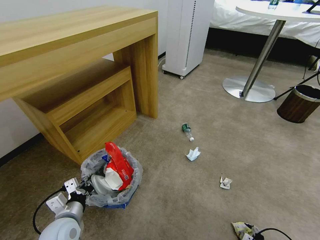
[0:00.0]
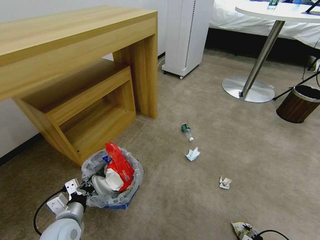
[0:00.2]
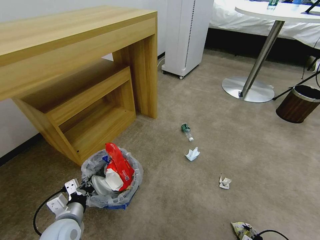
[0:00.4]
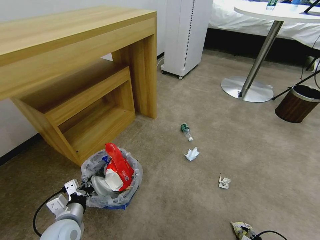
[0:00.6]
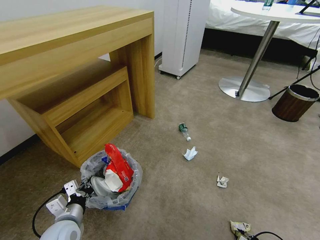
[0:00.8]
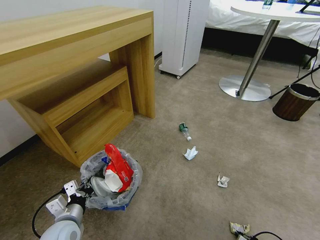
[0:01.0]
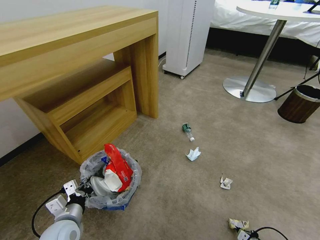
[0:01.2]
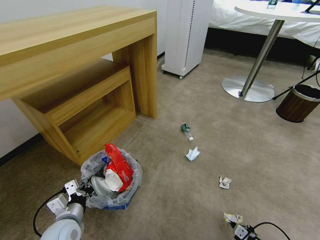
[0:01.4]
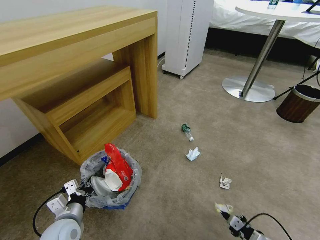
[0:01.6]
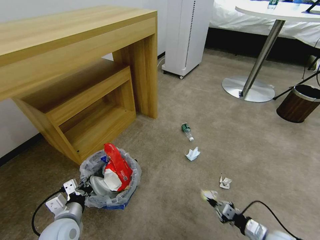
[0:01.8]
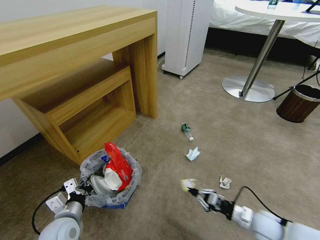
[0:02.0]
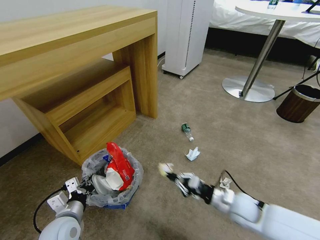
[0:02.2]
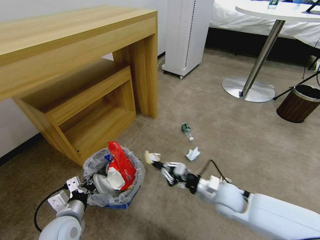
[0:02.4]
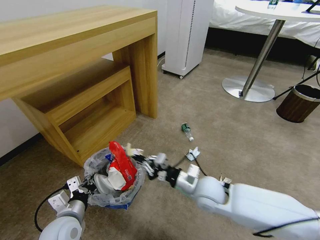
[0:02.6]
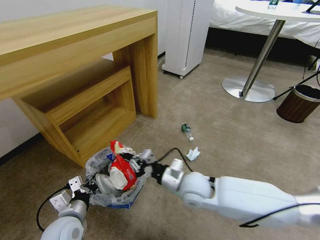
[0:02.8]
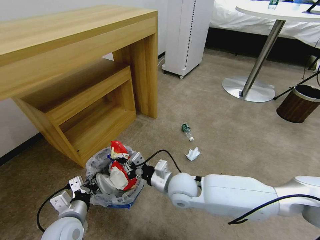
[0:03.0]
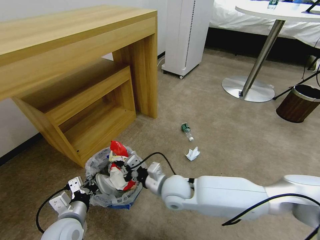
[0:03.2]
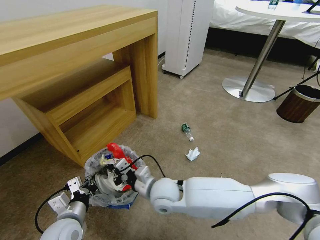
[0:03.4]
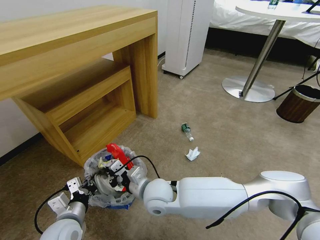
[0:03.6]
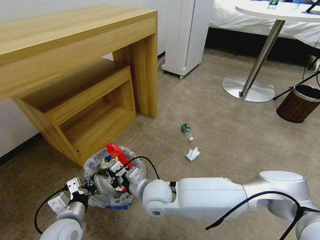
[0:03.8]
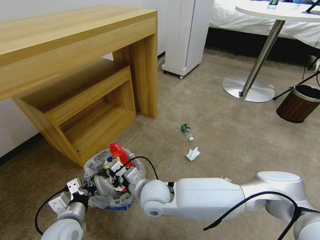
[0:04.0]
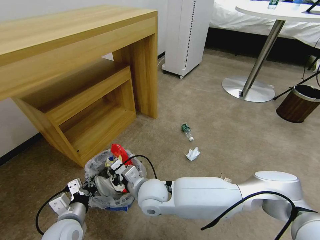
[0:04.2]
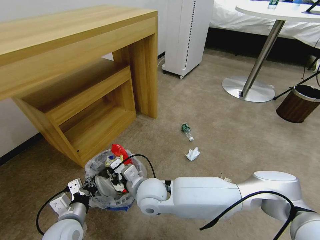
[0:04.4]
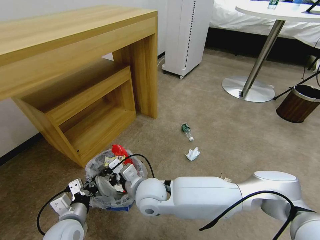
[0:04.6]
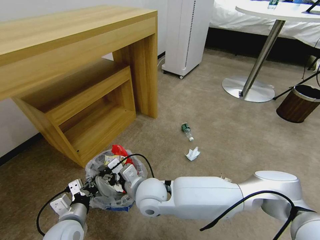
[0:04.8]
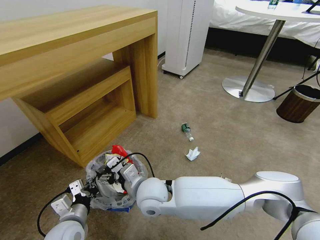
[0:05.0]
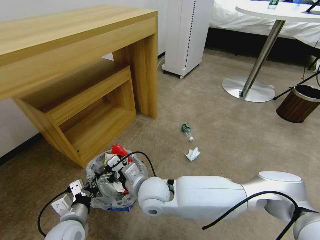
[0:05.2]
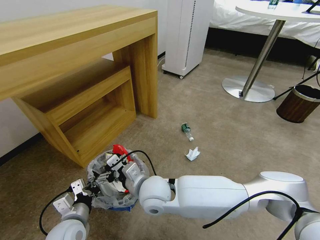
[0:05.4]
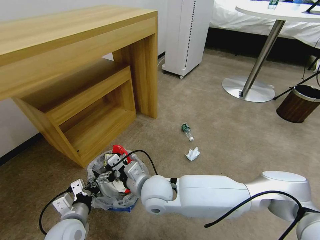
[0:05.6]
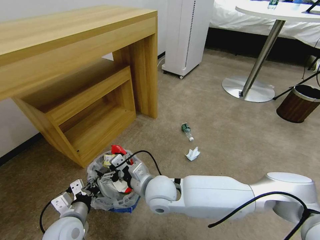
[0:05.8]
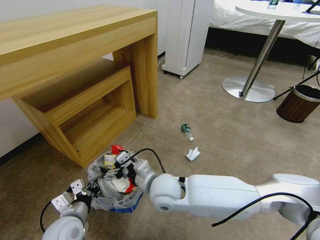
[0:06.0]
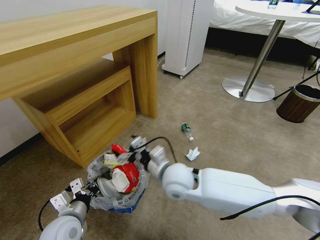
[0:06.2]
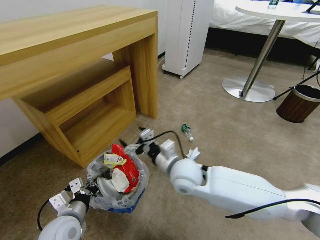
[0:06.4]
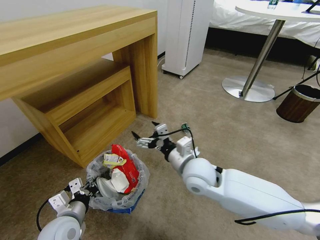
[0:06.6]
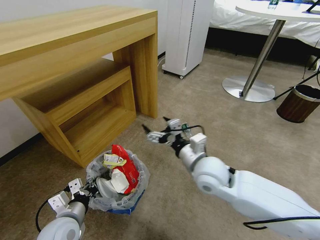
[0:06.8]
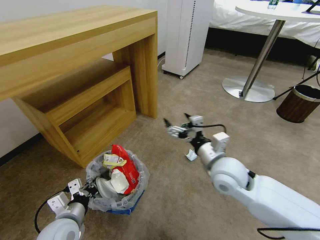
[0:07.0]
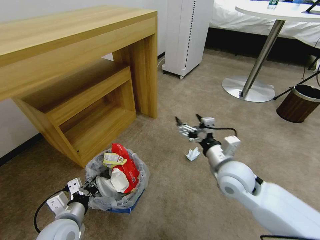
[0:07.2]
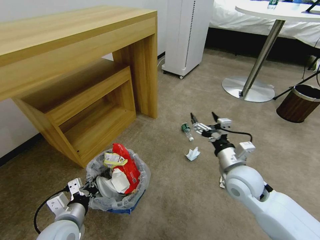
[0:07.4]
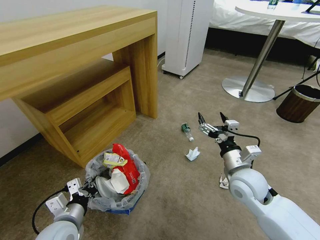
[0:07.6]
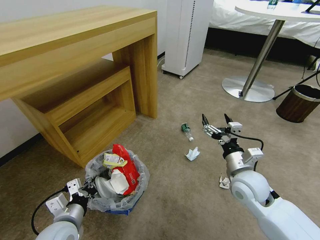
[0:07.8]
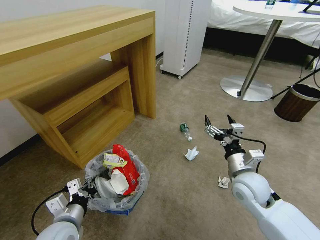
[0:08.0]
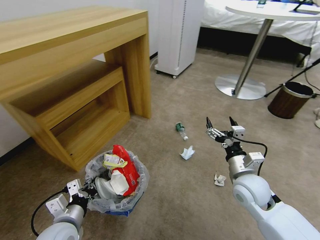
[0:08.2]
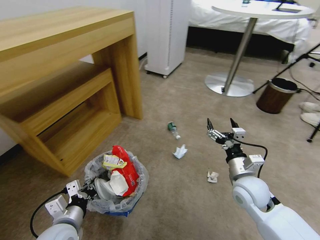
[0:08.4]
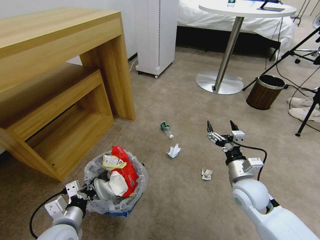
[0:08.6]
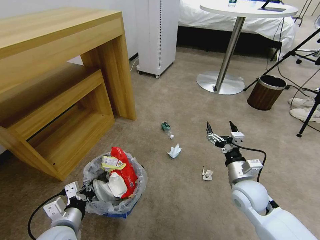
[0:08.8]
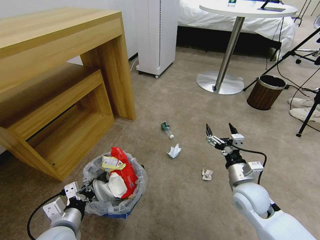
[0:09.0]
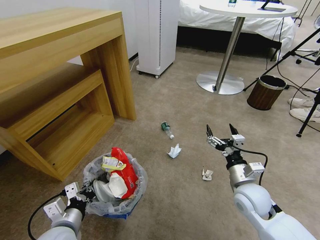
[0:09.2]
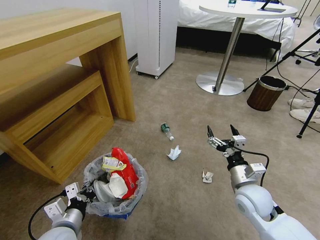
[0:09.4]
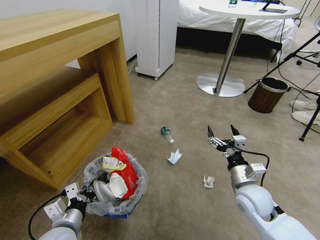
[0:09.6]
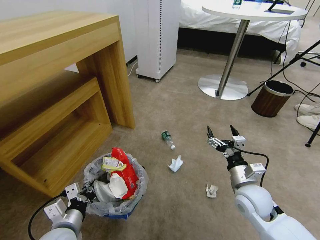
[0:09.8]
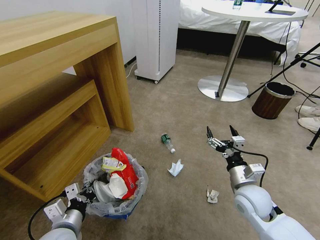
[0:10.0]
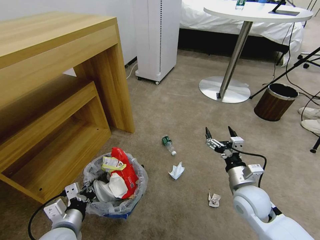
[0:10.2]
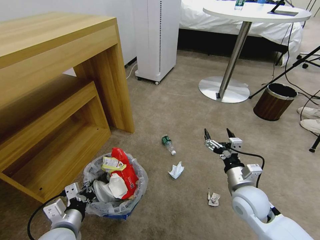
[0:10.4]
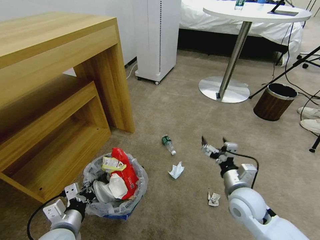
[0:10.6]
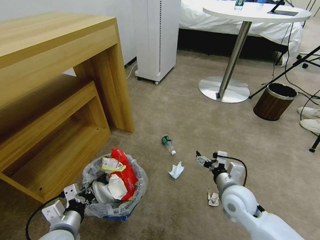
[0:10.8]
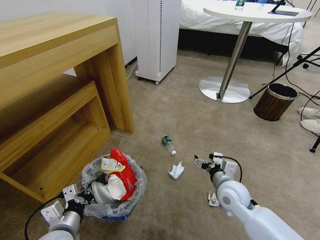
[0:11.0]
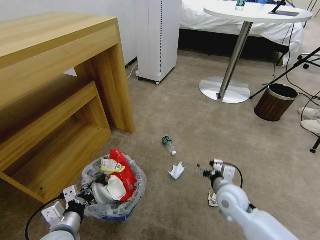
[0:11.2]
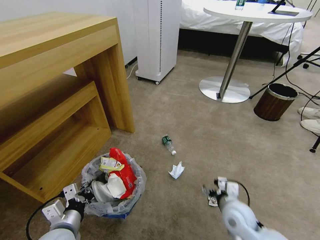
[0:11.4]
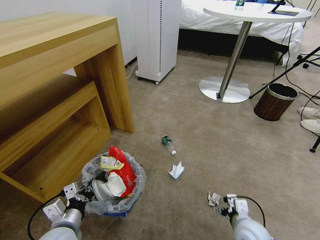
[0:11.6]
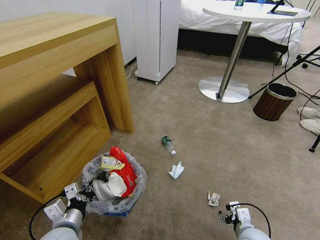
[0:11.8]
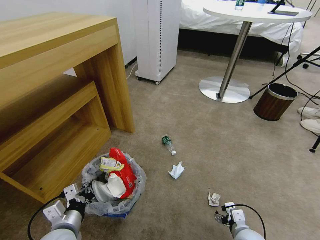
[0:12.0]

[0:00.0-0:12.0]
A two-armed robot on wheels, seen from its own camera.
Task of the whole recording: Pick up the trash bin and place the garbage on the floor into it.
0:00.0 to 0:01.6: The right gripper shifts by about 5 cm, and closes.
0:01.6 to 0:03.0: The right gripper goes some 40 cm to the left, forward and upward.
0:03.0 to 0:04.4: The right gripper shifts about 10 cm to the left.
0:04.4 to 0:06.0: The right gripper opens up.
0:06.0 to 0:07.6: The right gripper travels to the right by roughly 25 cm.
0:07.6 to 0:09.0: The right gripper shifts by roughly 5 cm.
0:10.4 to 0:12.0: The right gripper goes roughly 15 cm downward and backward.

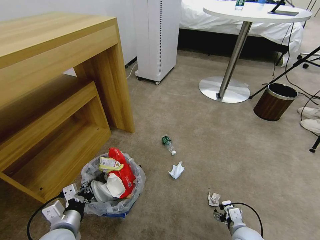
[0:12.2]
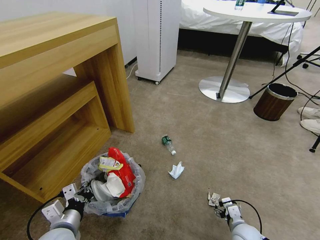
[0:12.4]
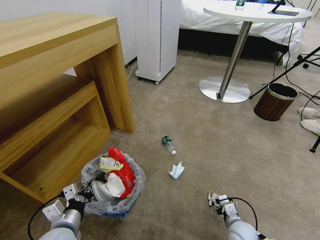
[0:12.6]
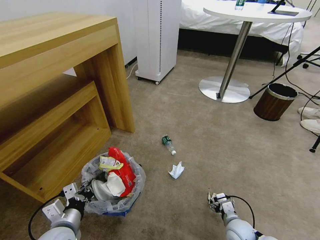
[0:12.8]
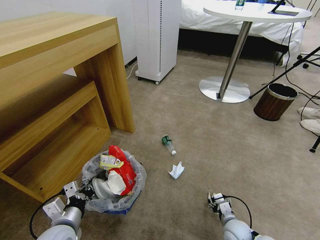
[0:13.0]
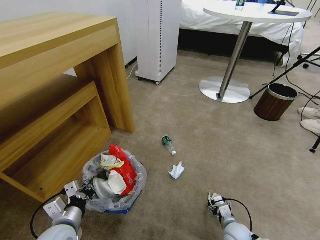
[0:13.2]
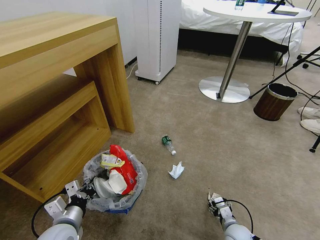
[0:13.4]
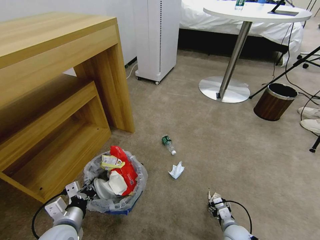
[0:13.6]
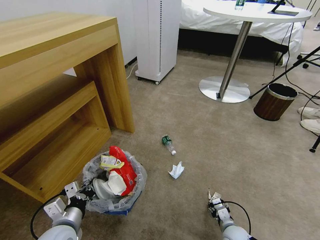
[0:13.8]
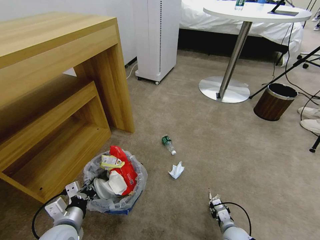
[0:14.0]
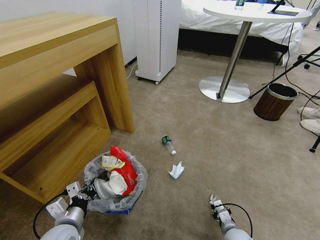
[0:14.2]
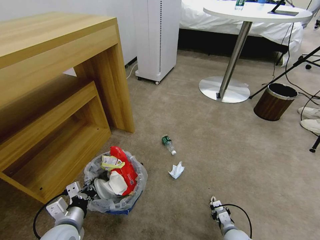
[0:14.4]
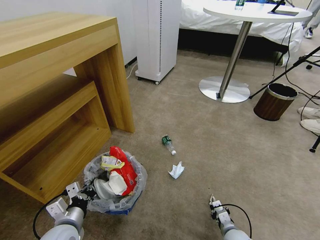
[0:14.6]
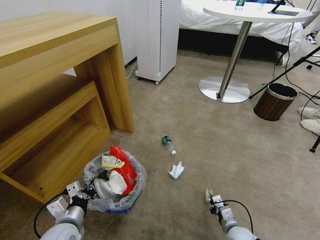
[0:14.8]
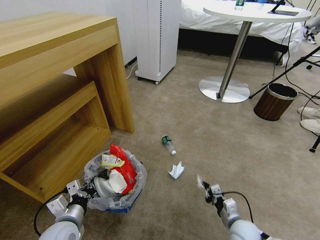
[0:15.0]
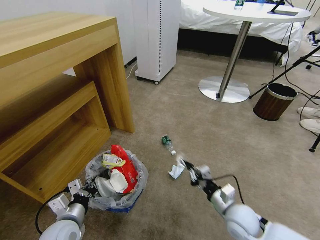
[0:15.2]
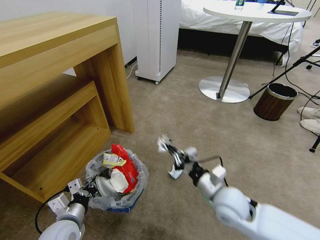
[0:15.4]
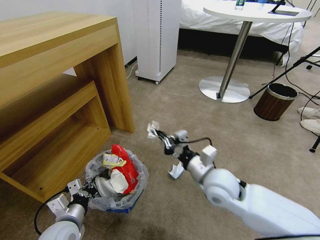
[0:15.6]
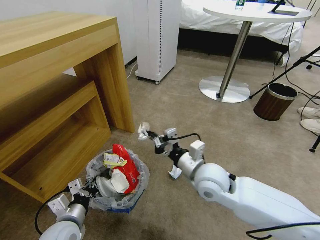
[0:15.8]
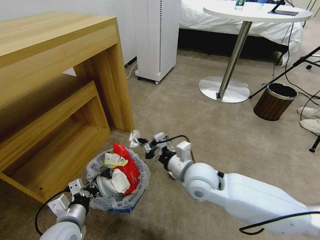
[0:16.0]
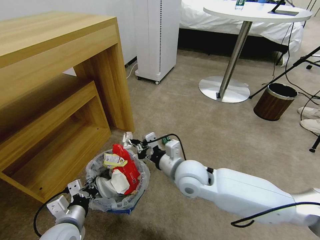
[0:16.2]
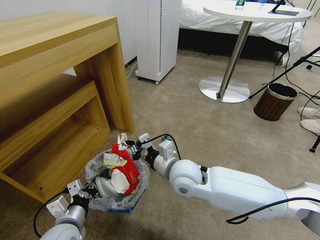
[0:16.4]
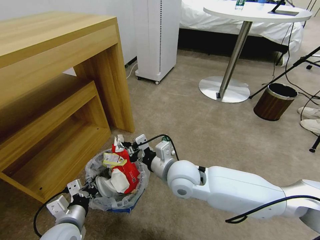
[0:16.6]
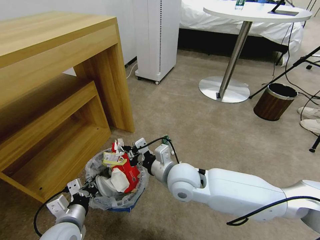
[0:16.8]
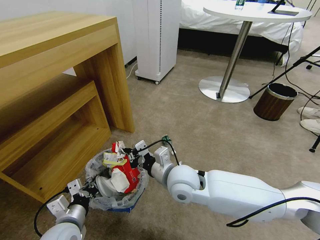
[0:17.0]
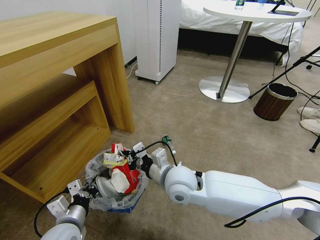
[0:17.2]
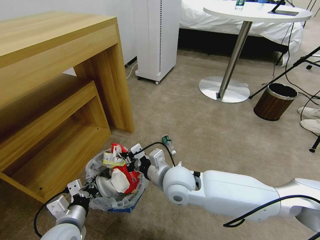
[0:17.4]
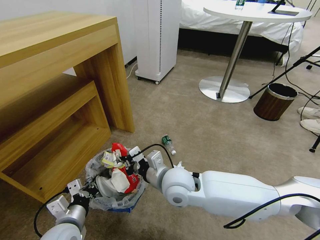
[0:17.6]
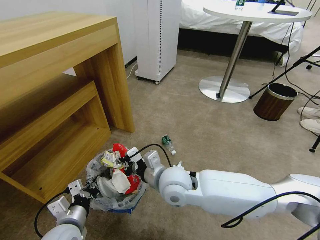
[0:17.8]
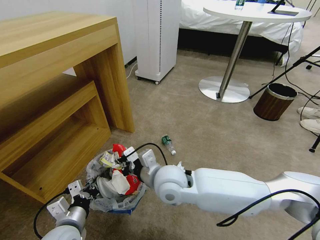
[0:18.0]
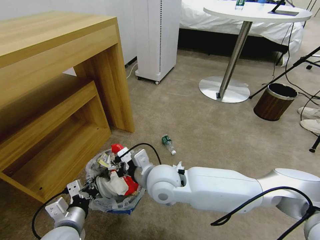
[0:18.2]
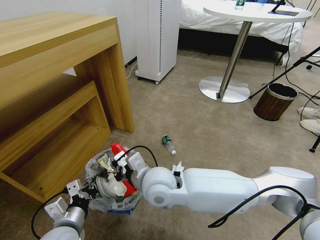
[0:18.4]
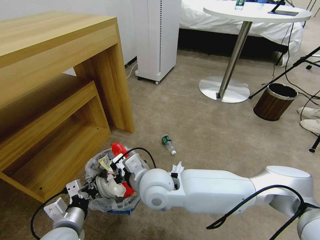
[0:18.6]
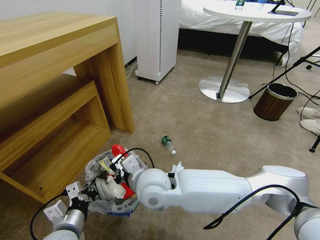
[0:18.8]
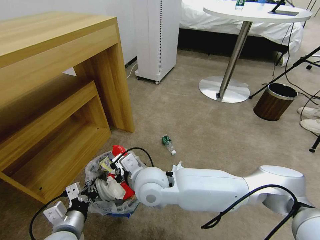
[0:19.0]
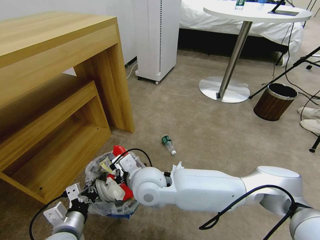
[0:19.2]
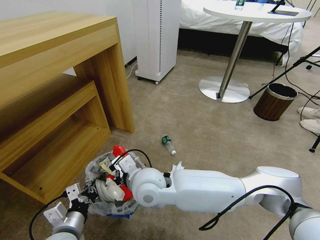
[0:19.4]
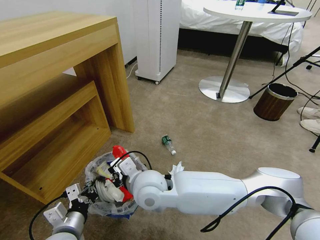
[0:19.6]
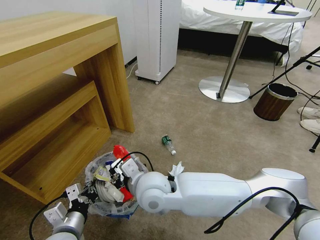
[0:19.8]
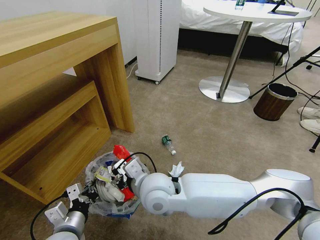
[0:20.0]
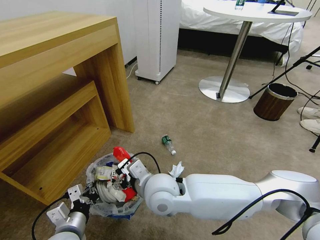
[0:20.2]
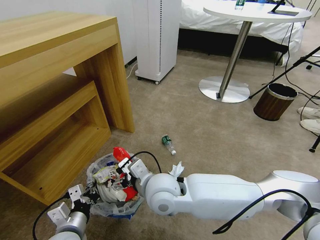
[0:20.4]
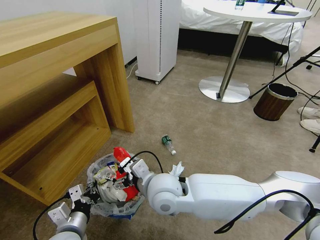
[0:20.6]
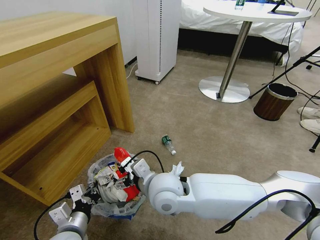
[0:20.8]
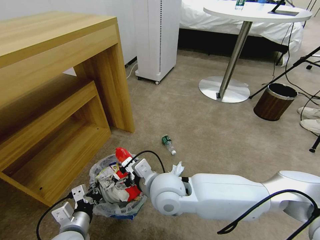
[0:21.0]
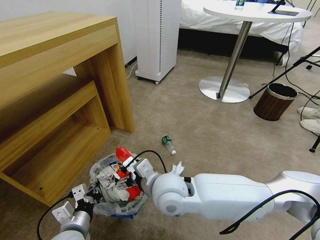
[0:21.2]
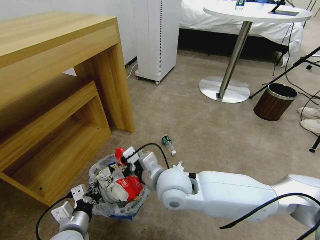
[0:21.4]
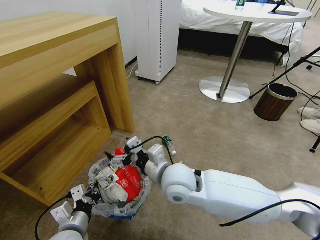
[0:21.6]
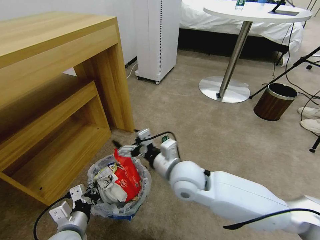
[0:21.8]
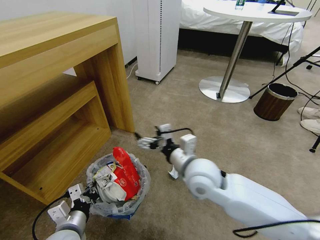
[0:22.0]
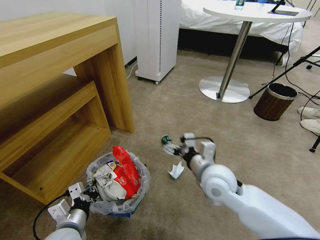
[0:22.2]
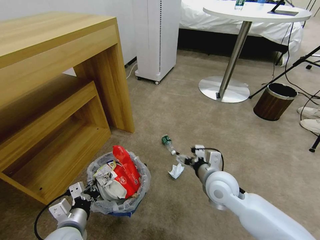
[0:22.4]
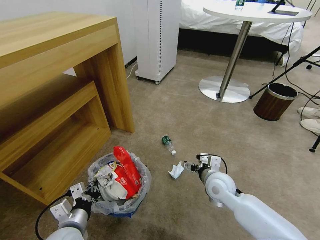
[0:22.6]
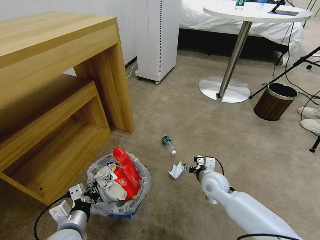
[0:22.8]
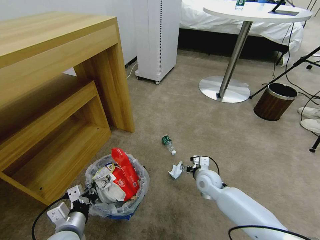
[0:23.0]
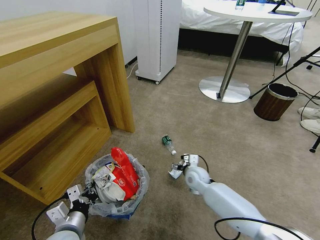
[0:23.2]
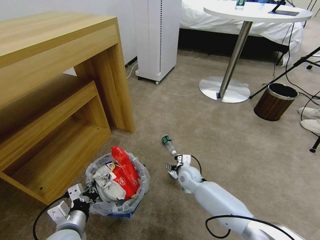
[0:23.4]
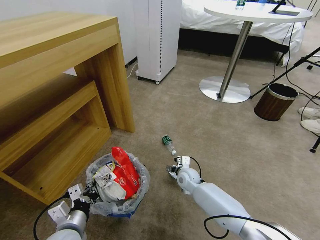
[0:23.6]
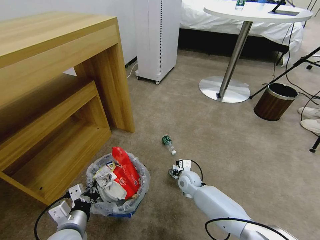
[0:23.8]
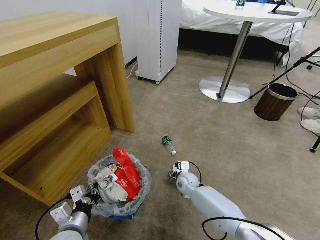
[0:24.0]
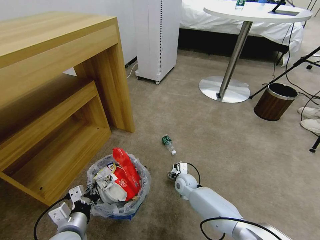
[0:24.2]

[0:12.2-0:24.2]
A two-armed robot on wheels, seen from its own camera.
Task of the whole recording: Pick up the trash bin and place the garbage on the floor into it.
0:12.2 to 0:13.8: The right gripper shifts approximately 5 cm downward.
0:13.8 to 0:15.2: The right gripper goes approximately 15 cm upward, and closes up.
0:15.2 to 0:16.6: The right gripper is displaced to the left, upward and forward by approximately 25 cm.
0:16.6 to 0:18.2: The right gripper shifts some 5 cm to the left.
0:18.2 to 0:19.8: The right gripper opens its fingers.
0:19.8 to 0:21.2: The right gripper opens its fingers.
0:21.2 to 0:22.6: The right gripper moves to the right and downward, about 20 cm.
0:22.6 to 0:24.2: The right gripper moves downward, forward and to the left, about 20 cm.
